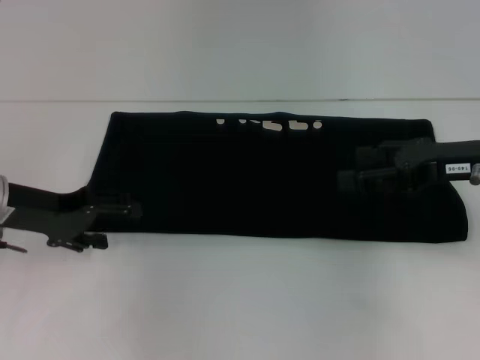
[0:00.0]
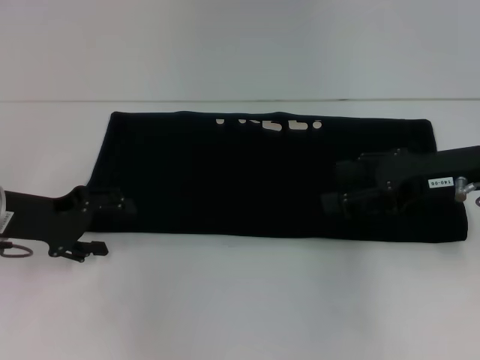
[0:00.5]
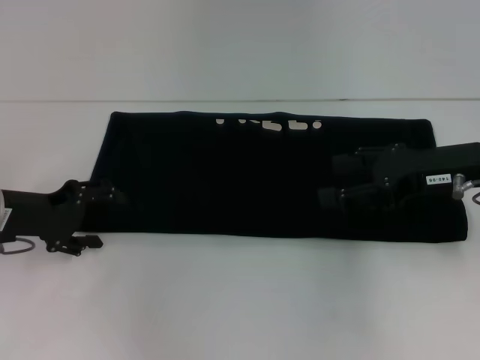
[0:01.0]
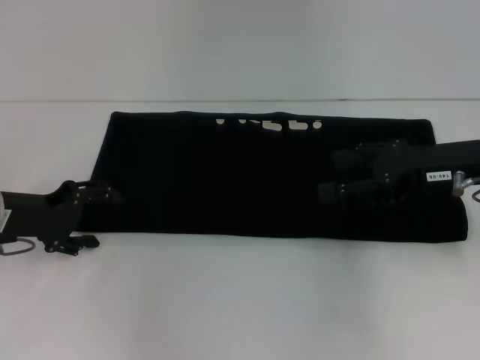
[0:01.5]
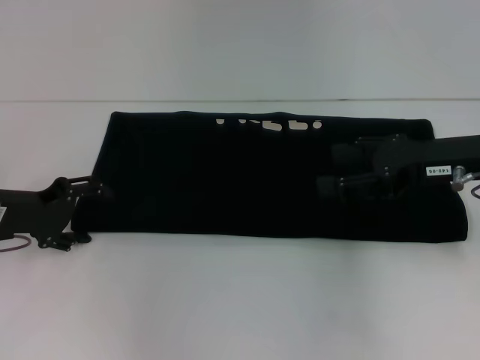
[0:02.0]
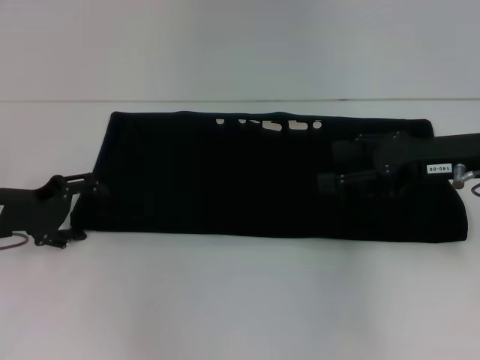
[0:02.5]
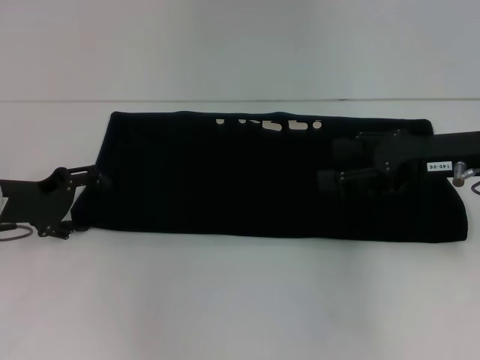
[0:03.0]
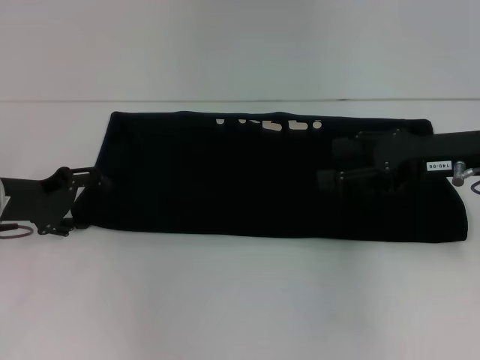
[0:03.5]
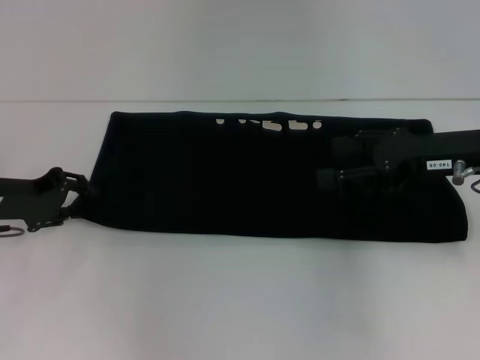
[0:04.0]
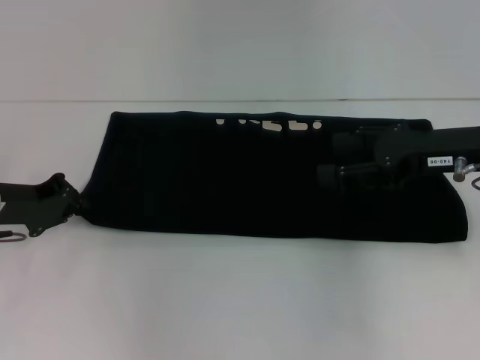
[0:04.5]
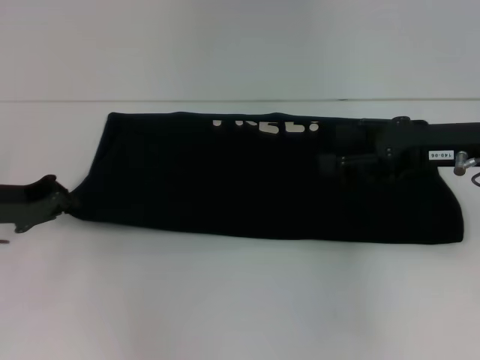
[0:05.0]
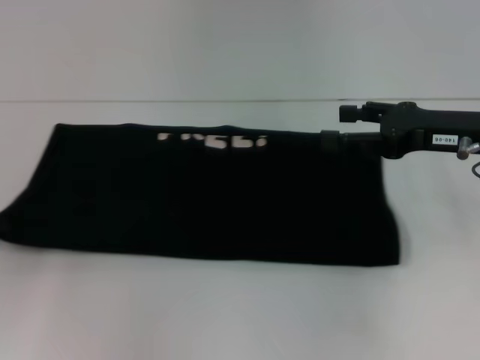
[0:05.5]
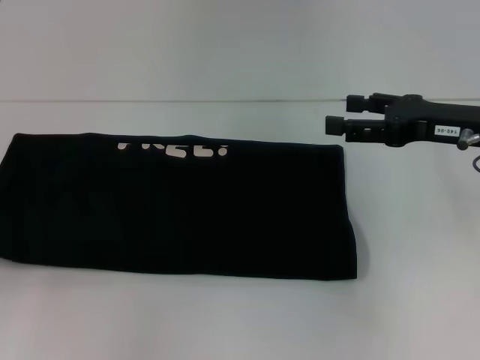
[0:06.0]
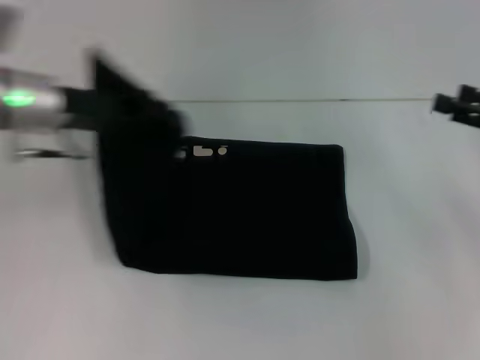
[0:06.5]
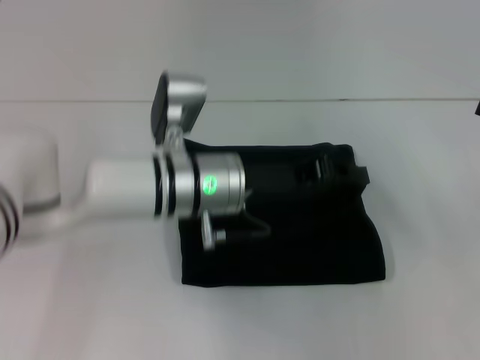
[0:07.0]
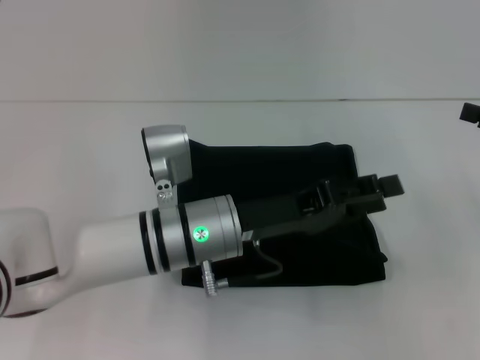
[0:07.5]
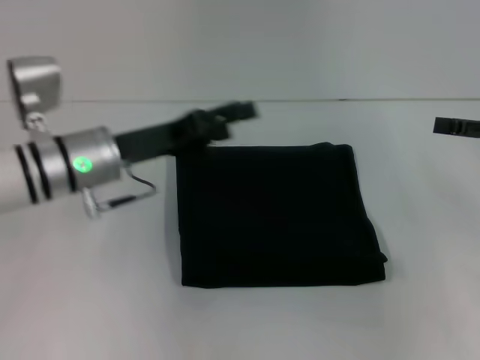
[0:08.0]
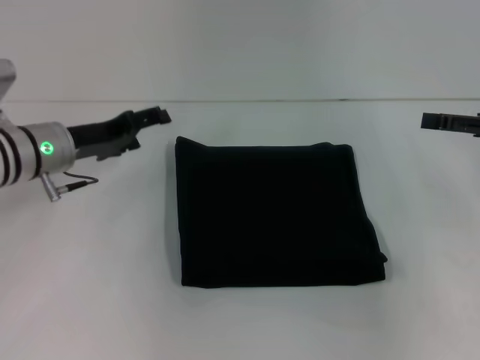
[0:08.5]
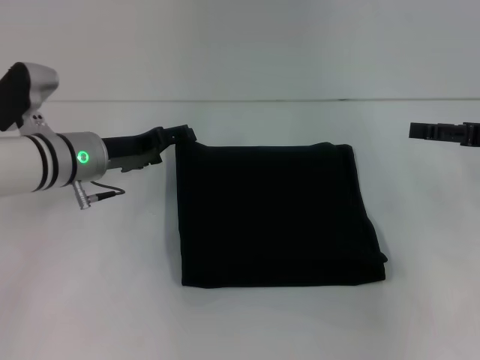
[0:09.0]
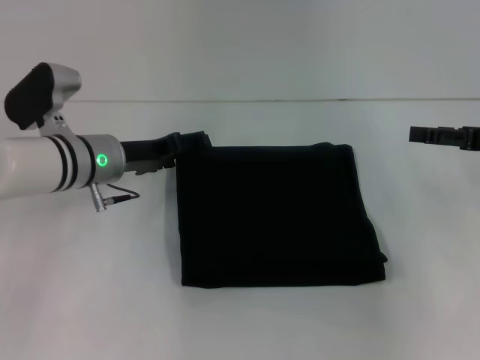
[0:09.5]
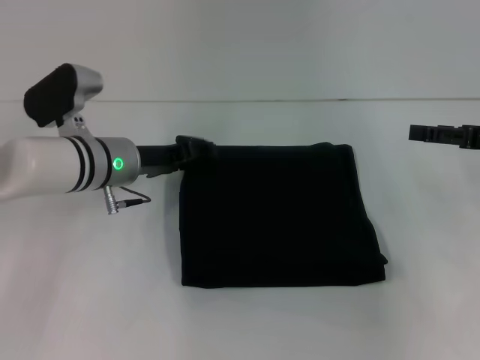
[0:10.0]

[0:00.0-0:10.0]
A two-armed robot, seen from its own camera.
Step, 0:00.0 to 0:07.0: Fold the clothes with your left hand.
0:02.0 to 0:04.0: The grippers move only a little.
0:04.0 to 0:06.0: The left gripper moves to the left and backward, roughly 15 cm, and closes.
0:06.0 to 0:08.0: The left gripper goes about 25 cm to the right, and opens. Meanwhile the right gripper moves to the right, some 10 cm.
0:08.0 to 0:10.0: The left gripper moves some 5 cm.

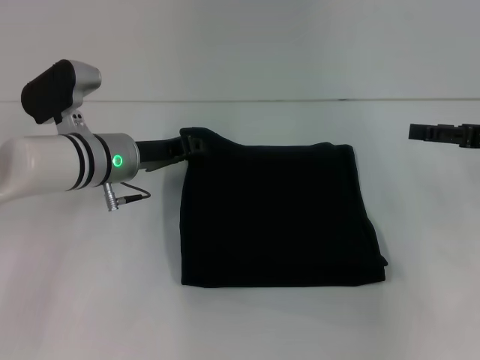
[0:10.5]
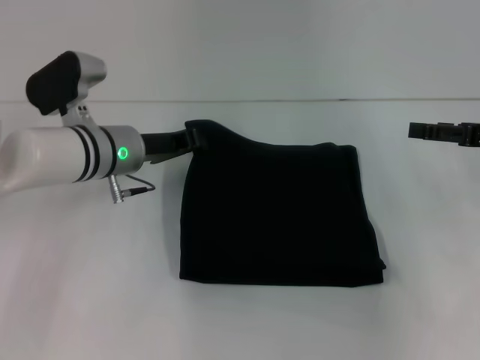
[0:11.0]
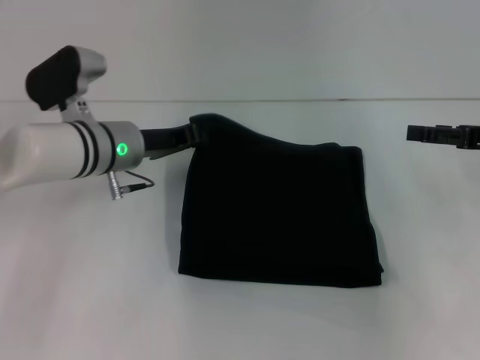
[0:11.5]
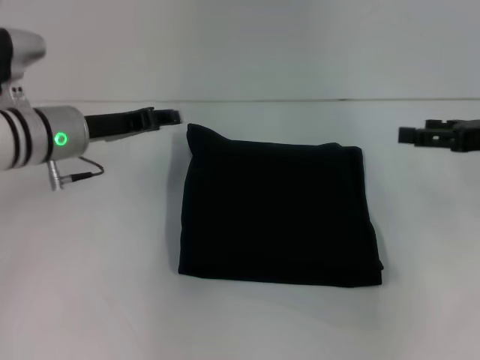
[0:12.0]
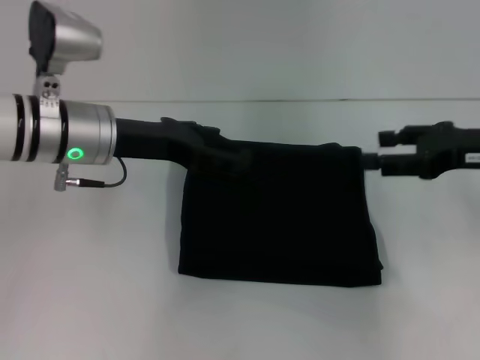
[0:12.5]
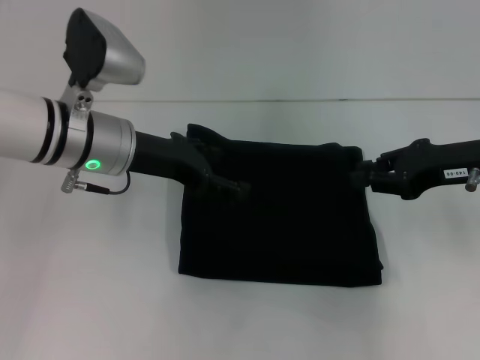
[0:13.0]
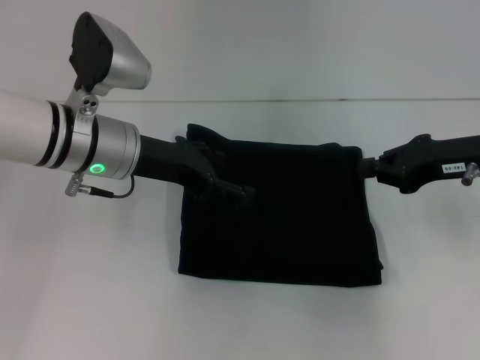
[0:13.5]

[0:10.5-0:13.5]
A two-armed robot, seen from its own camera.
0:10.5 to 0:12.0: The left gripper ends up roughly 5 cm from where it was.
0:12.0 to 0:13.5: The left gripper goes about 5 cm to the right, and opens; the right gripper moves to the left, approximately 5 cm, and closes up.
